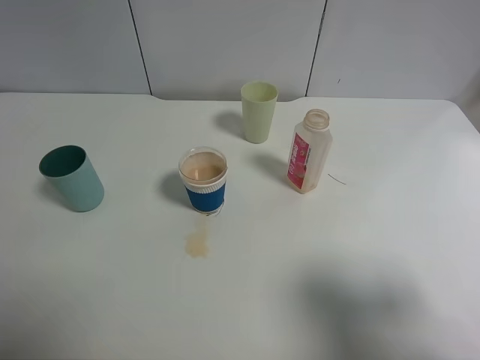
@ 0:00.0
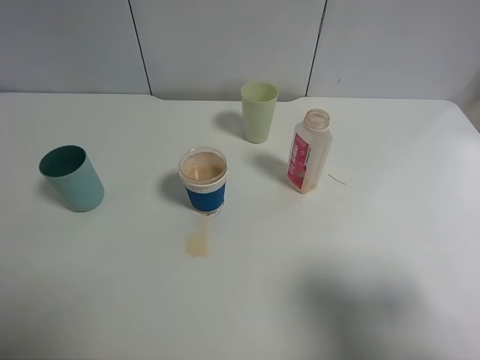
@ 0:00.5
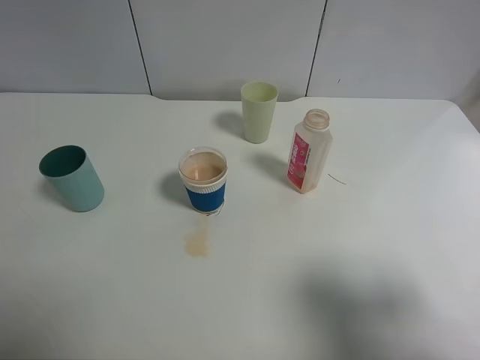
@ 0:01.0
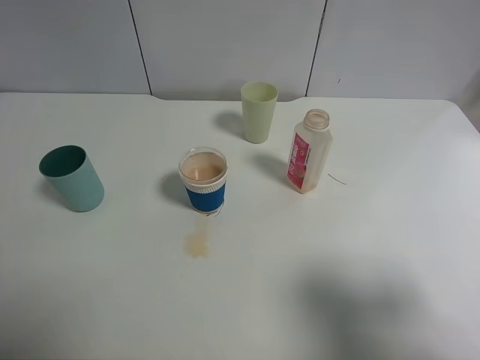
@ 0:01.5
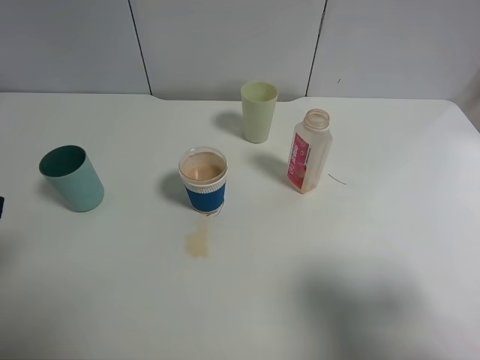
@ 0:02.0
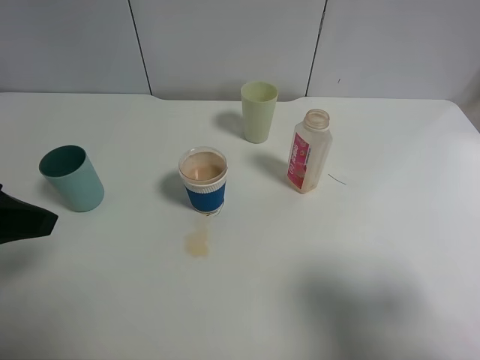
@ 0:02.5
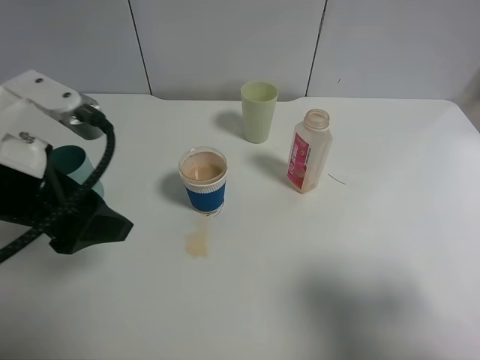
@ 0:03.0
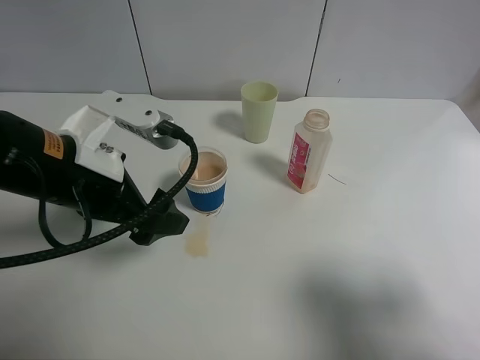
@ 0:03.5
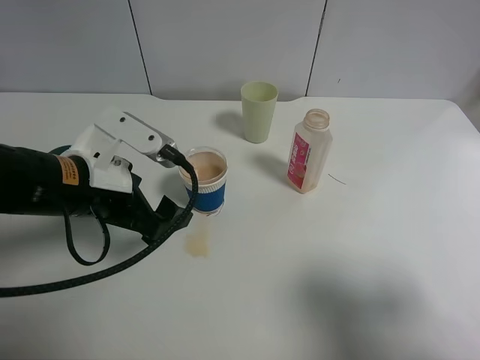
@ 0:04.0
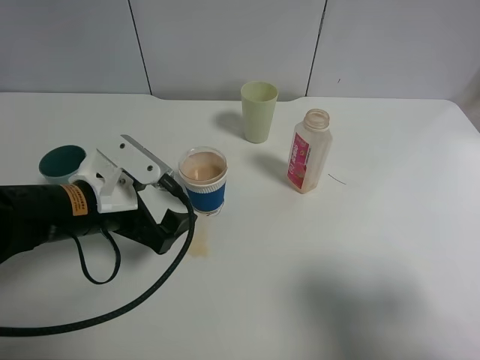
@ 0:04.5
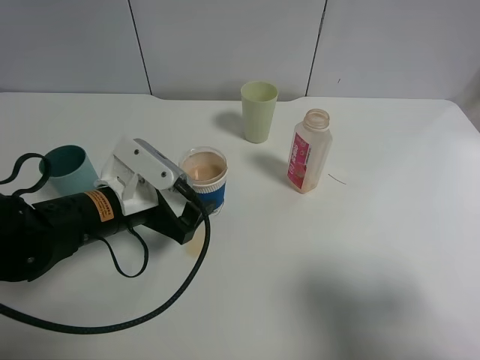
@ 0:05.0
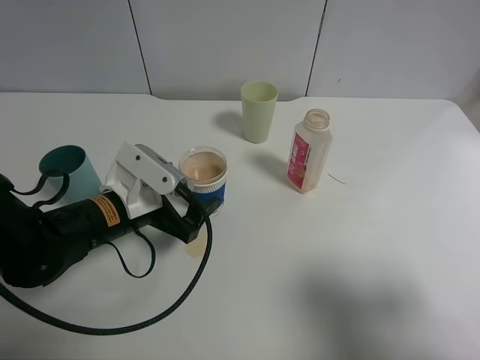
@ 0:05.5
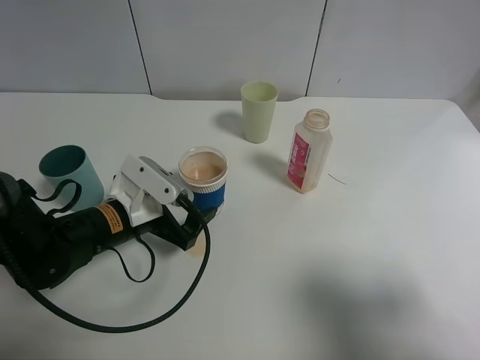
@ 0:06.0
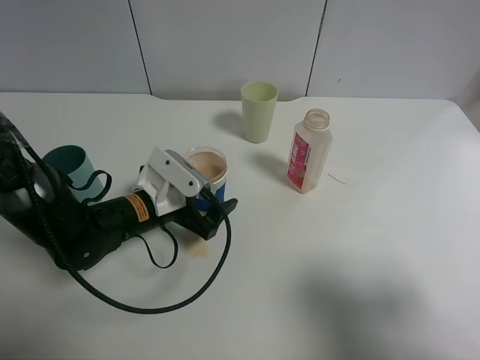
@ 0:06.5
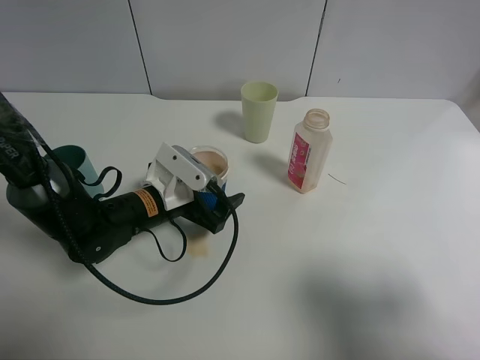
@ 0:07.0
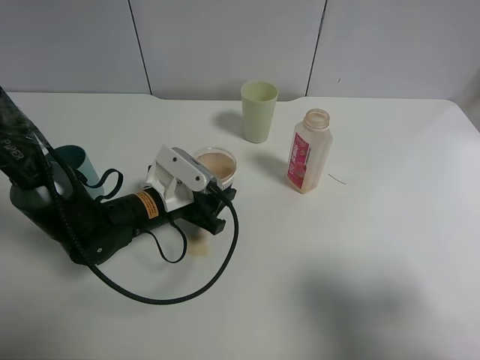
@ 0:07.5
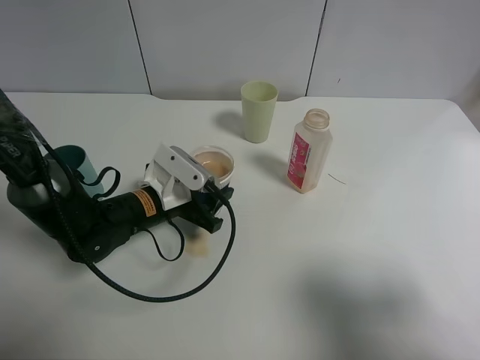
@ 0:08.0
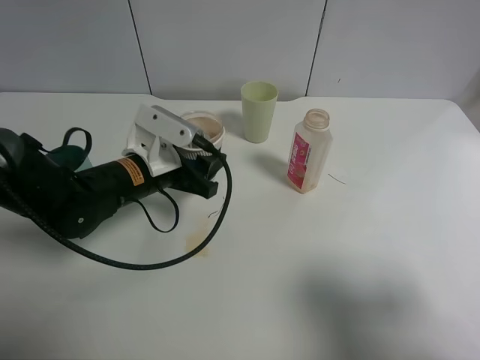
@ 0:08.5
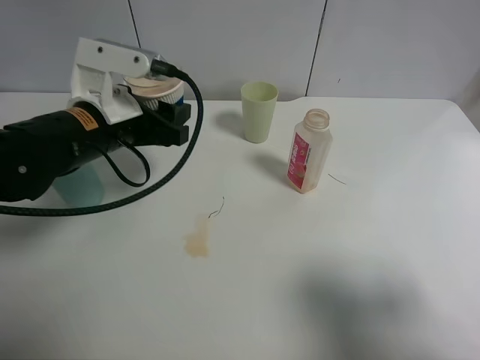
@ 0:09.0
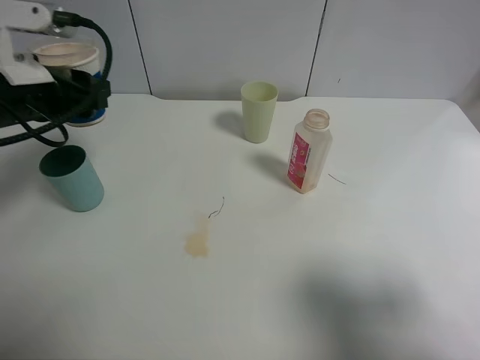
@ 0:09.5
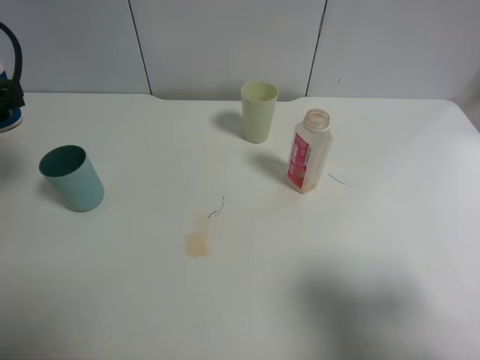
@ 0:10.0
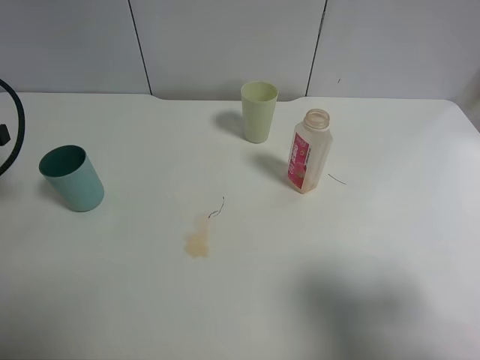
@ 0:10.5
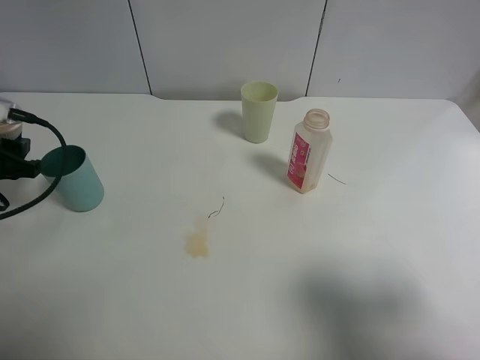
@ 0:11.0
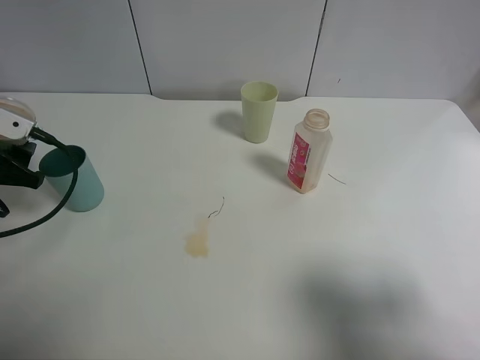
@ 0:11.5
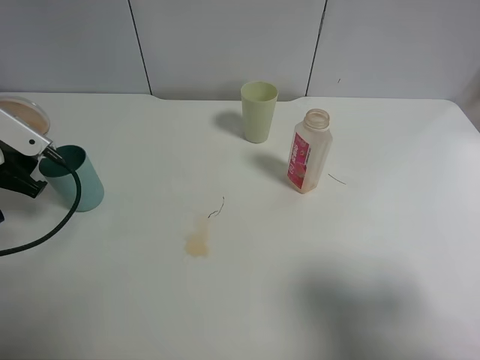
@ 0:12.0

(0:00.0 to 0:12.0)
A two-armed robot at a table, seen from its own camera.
Task of the whole recording: use a clamp to hold the bottle of the drink, pour the beverage into a random cup, then clamp the cup containing the drink and pour the drink into another random cup.
Step, 0:00.0 - 0:08.0: Pick up the paper cup with left gripper.
0:02.0 - 0:04.0: The left gripper goes roughly 20 cm to the right, downward and forward.
0:04.0 - 0:06.0: The left gripper is displaced downward by some 10 cm.
0:06.0 - 0:08.0: The left gripper shifts by roughly 5 cm, and closes up.
0:08.0 - 0:10.0: The left gripper is displaced to the left and upward by roughly 25 cm.
0:10.0 - 0:12.0: The left gripper shifts approximately 5 cm downward.

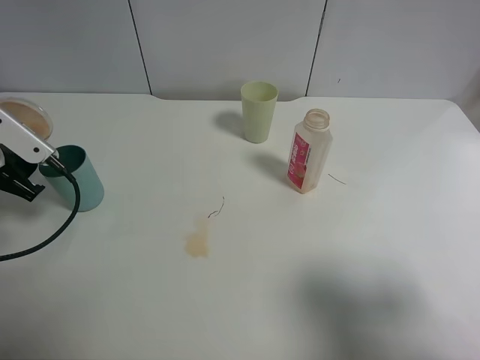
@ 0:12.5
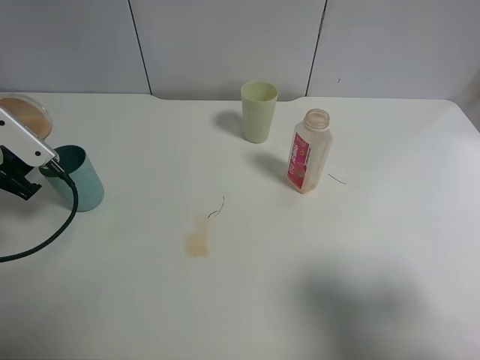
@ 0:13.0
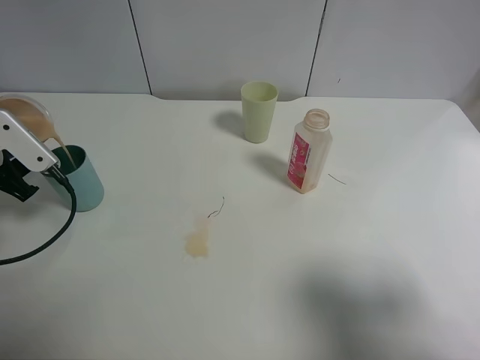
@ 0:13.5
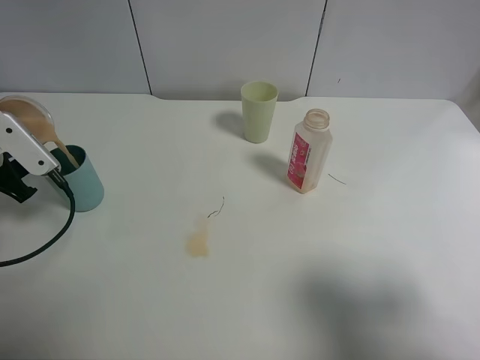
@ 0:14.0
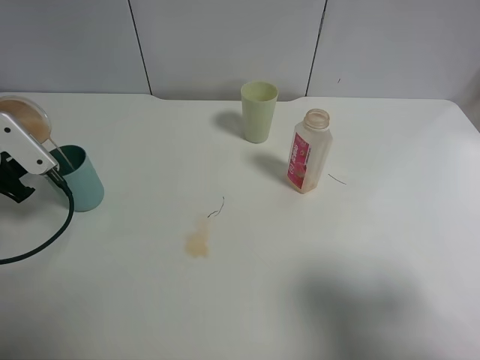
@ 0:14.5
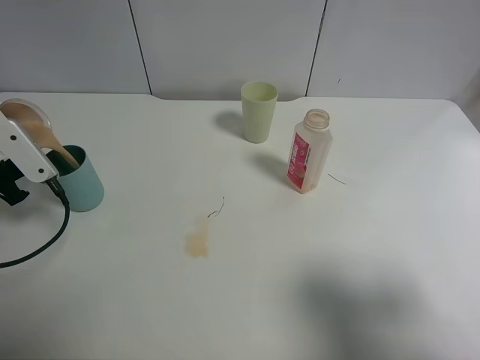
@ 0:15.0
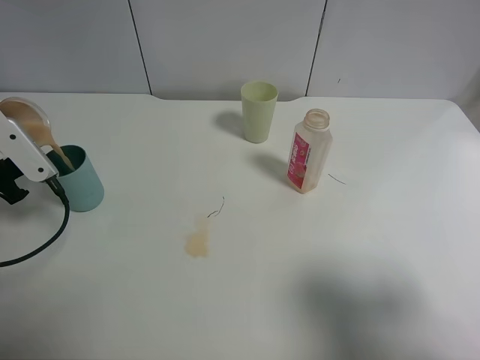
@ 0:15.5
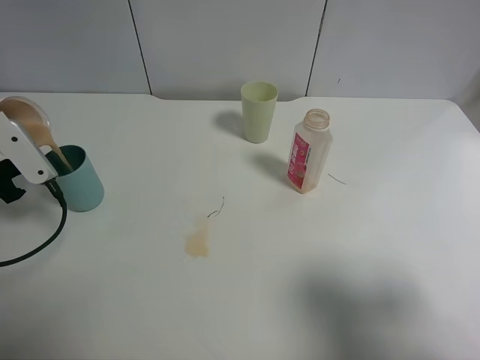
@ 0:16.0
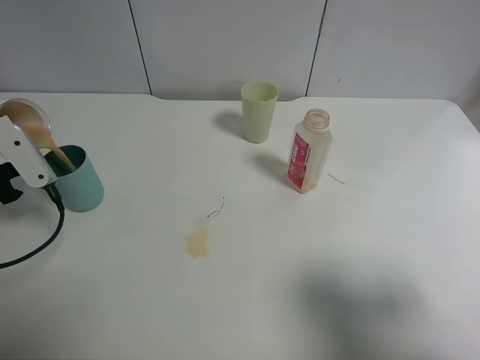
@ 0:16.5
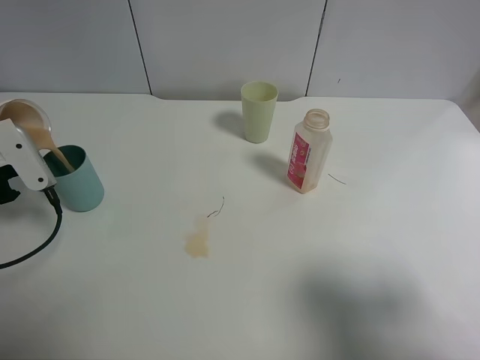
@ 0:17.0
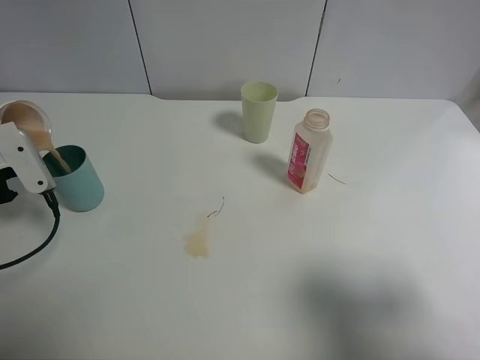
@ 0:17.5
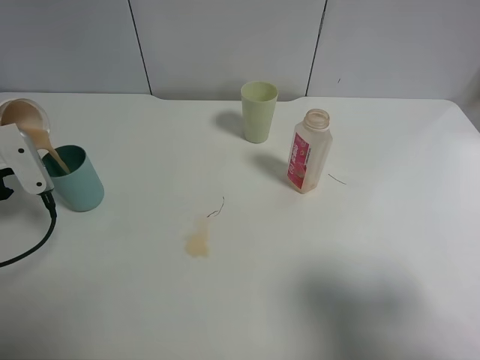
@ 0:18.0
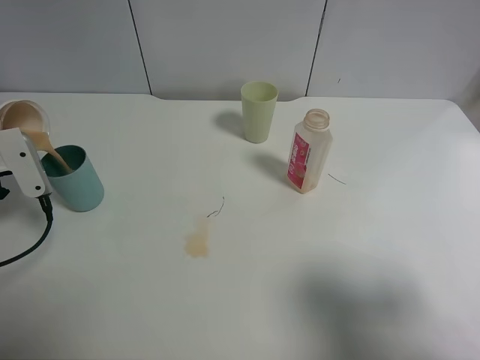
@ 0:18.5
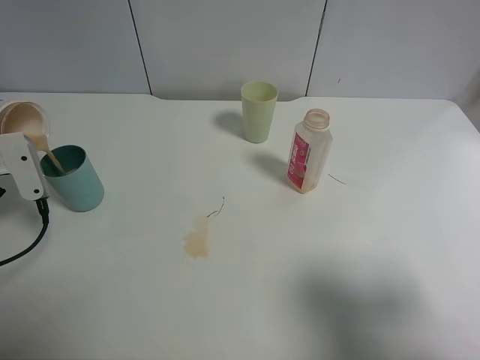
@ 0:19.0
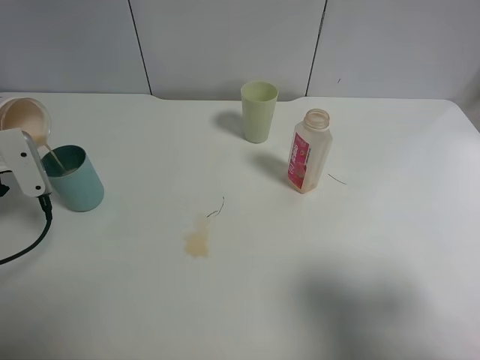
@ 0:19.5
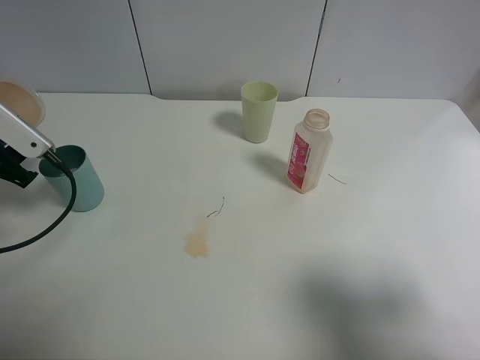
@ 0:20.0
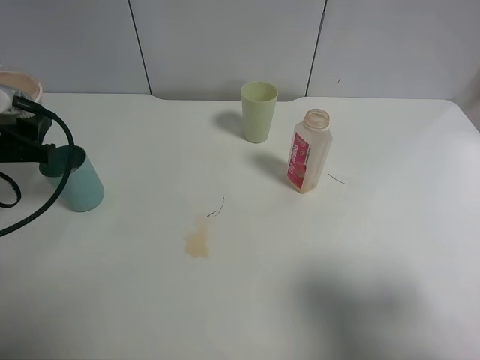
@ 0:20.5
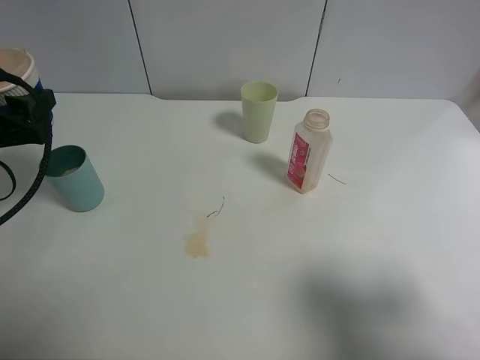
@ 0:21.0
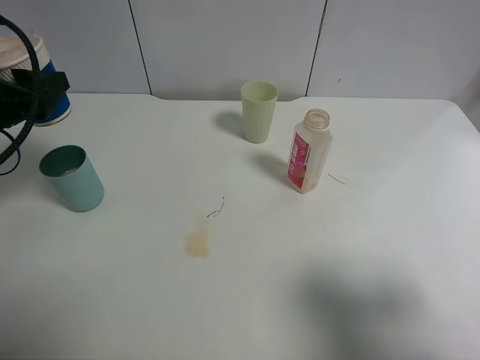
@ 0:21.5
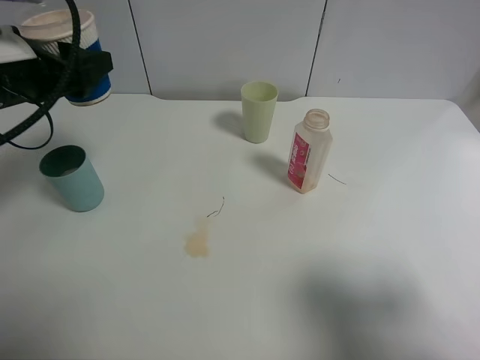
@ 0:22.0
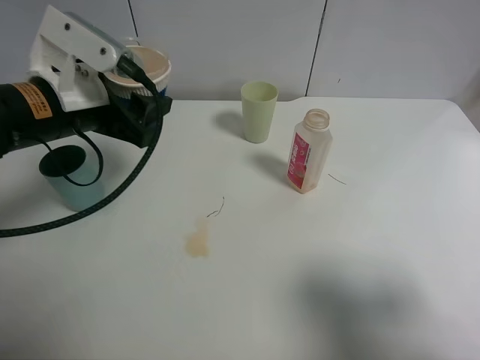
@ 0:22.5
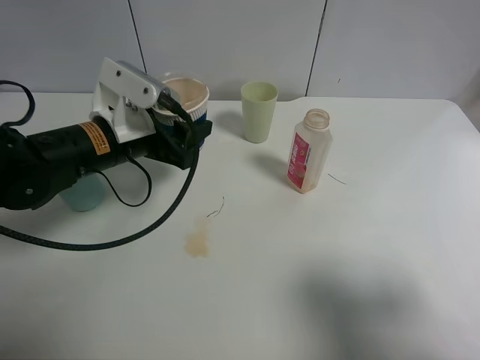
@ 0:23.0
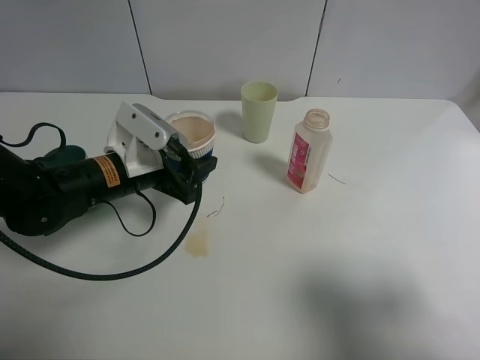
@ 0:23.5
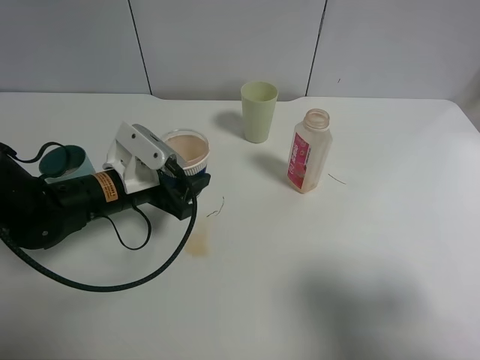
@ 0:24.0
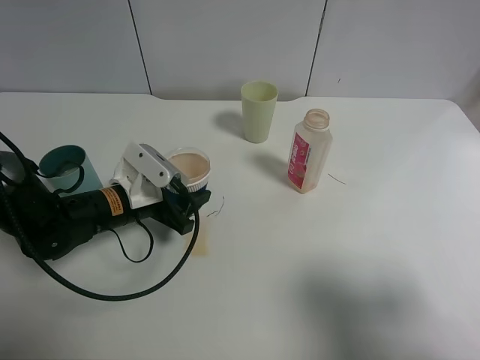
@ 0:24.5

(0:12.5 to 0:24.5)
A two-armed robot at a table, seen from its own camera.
Task of the whole recording: use a clamp to hold the bottle of the drink, pour the beverage into a random cup, then clamp the cup containing the drink and pour the drink into another random cup.
Step, 0:12.5 - 0:19.5: Pour the drink into the blue plastic cup with left gripper.
0:12.5 - 0:14.5: The grippers move only a little.
0:14.5 - 0:16.5: There are only small adjustments of the grippers.
0:16.5 - 0:18.5: The grippers make only small movements.
0:20.5 - 0:22.5: The left gripper moves to the right and upward, approximately 15 cm.
0:22.5 - 0:24.5: The left gripper moves downward, about 15 cm.

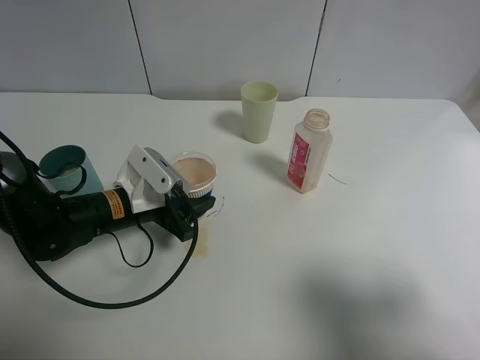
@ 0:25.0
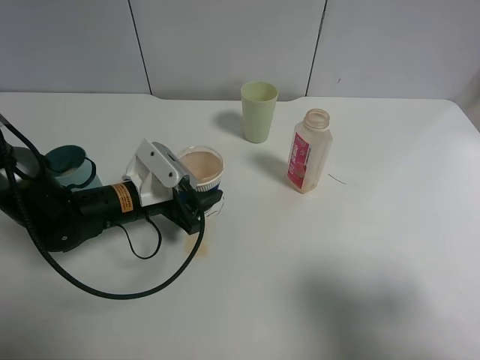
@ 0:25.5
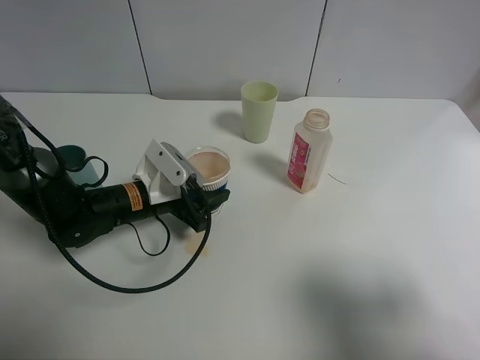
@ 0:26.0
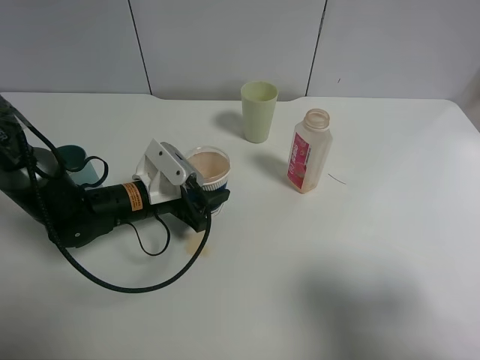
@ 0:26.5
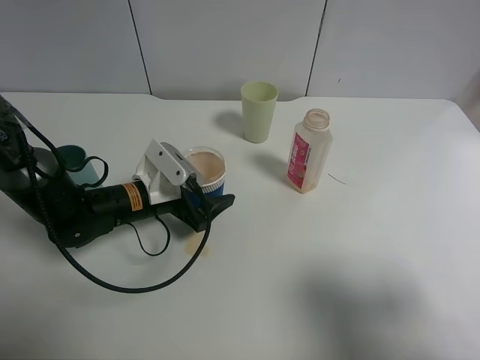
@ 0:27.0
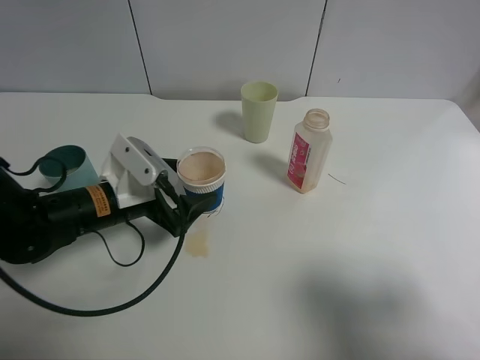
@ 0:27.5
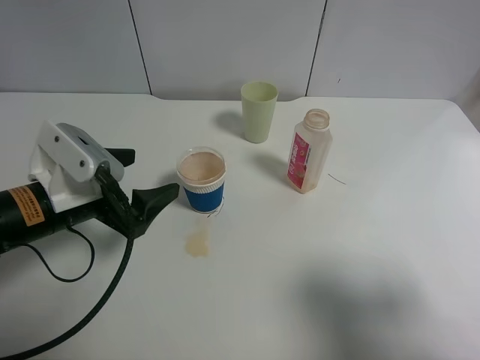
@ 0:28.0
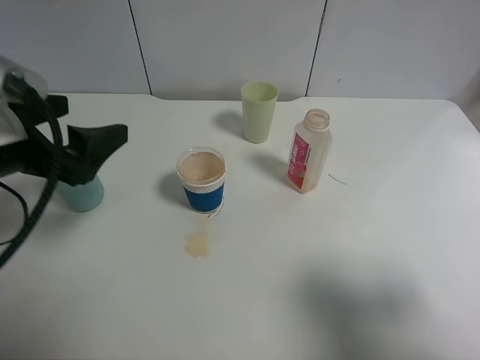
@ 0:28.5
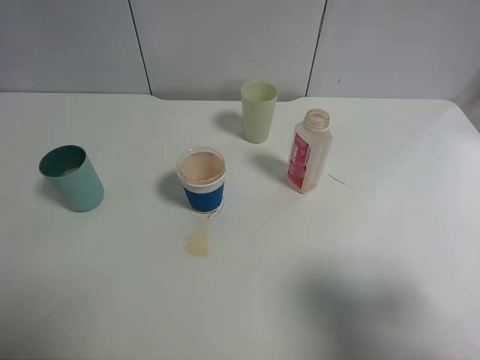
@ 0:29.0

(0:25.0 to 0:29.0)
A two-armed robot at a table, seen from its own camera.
Task of the whole recording: use a clamp to hold the bottle of the drink, pour the beverage into a random cup, then clamp the cup containing the drink and pour the drink into another random cup.
0:25.0 - 0:27.0: The left gripper opens its fingers.
0:27.0 - 0:29.0: The left gripper travels upward, to the left and backward by about 35 cm.
